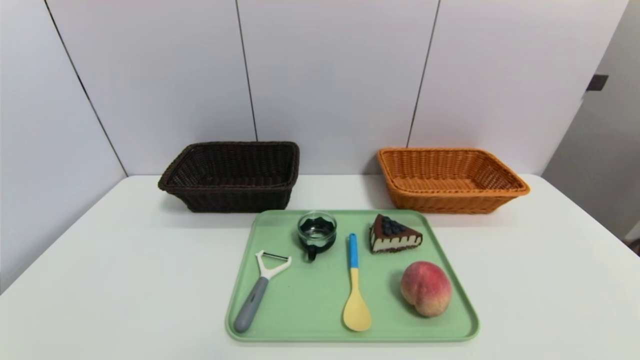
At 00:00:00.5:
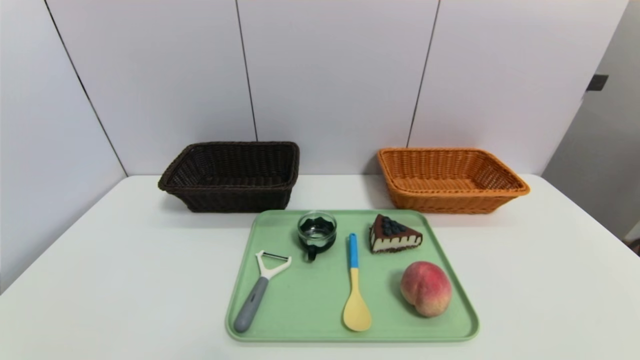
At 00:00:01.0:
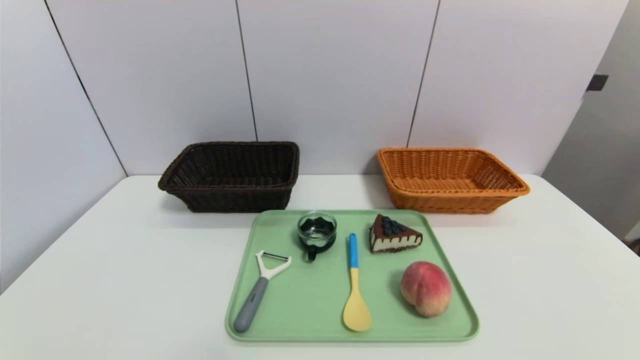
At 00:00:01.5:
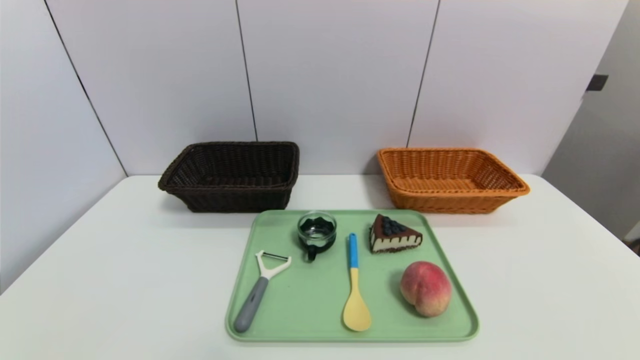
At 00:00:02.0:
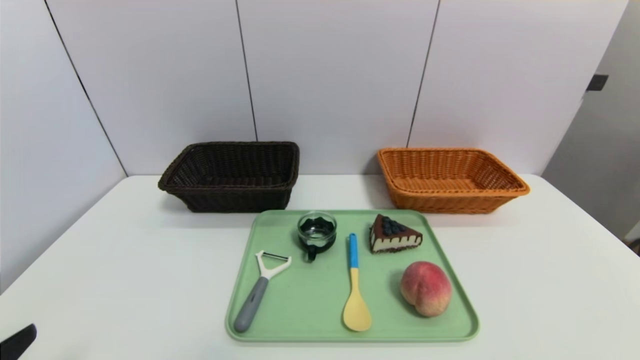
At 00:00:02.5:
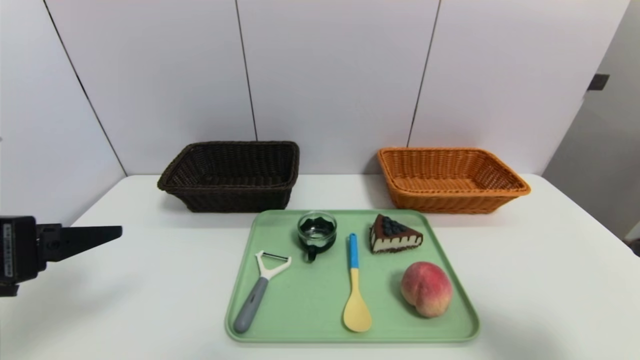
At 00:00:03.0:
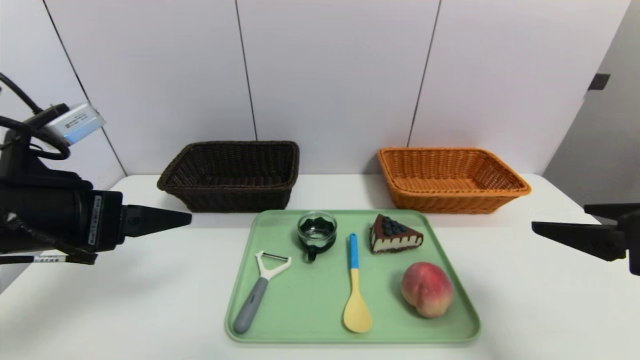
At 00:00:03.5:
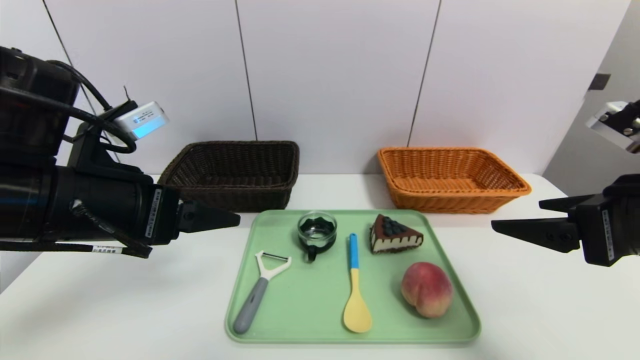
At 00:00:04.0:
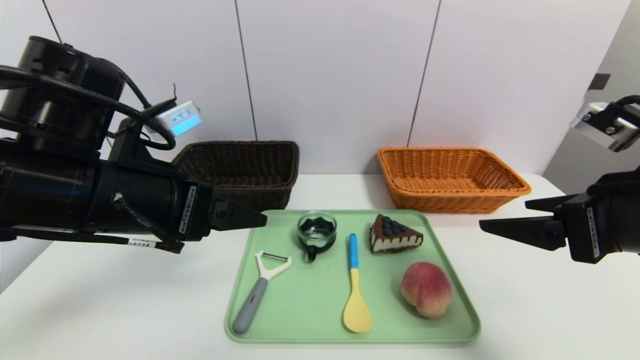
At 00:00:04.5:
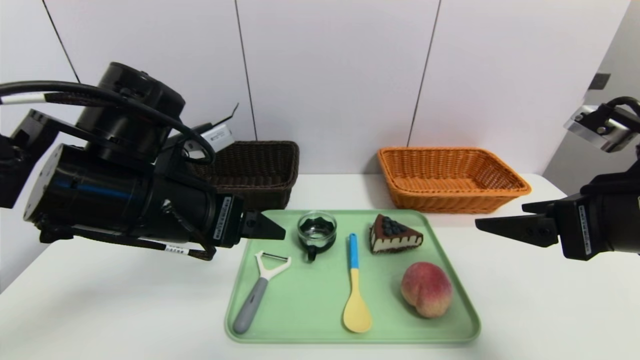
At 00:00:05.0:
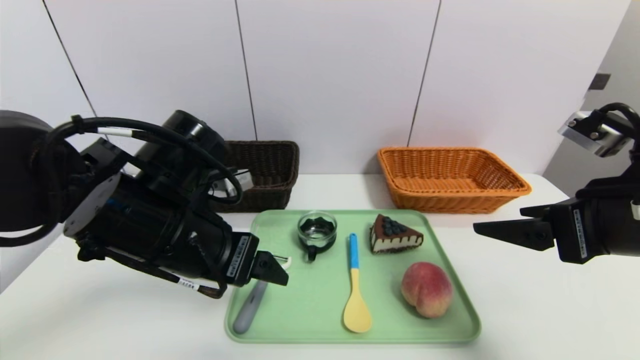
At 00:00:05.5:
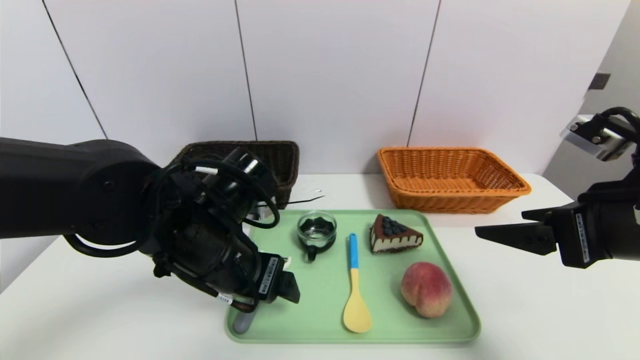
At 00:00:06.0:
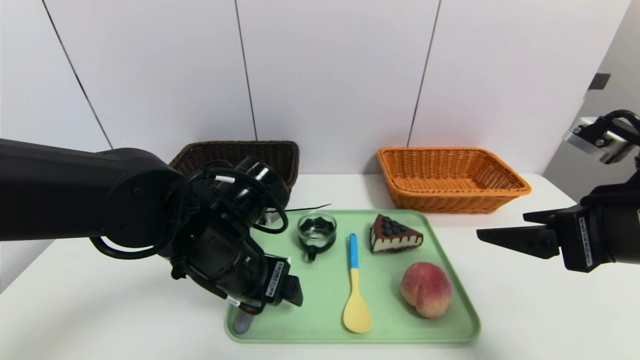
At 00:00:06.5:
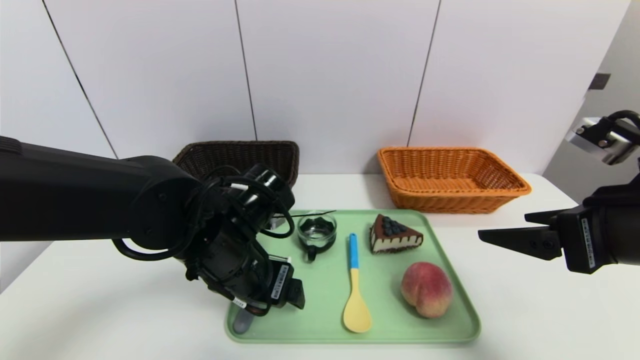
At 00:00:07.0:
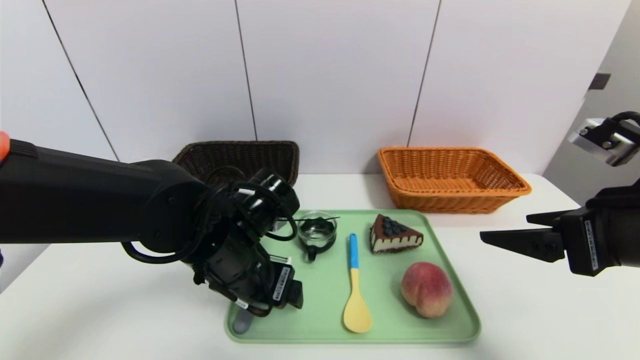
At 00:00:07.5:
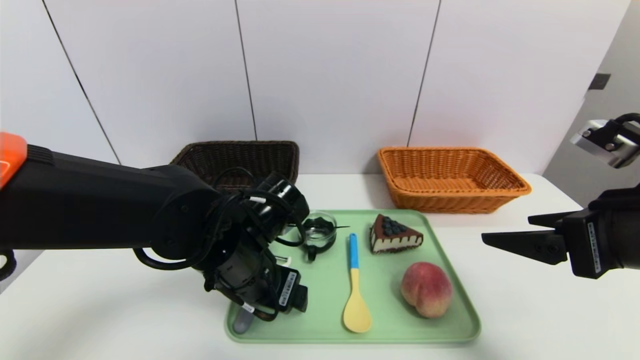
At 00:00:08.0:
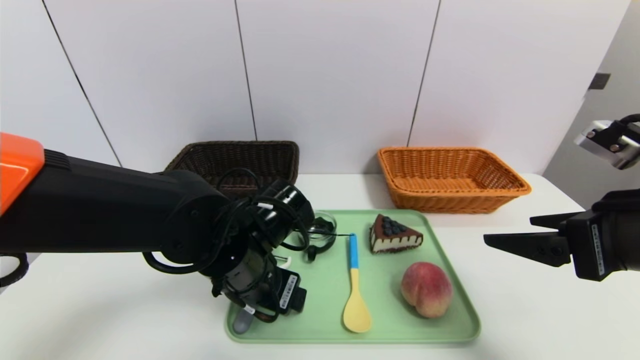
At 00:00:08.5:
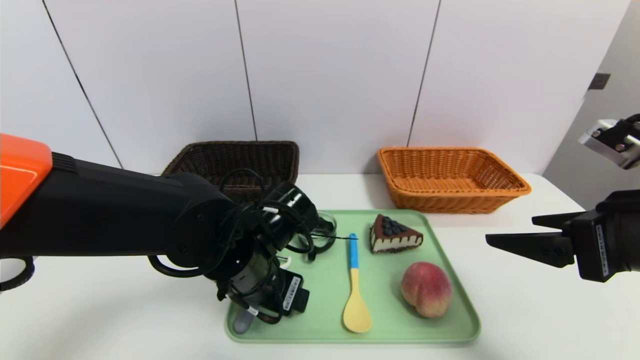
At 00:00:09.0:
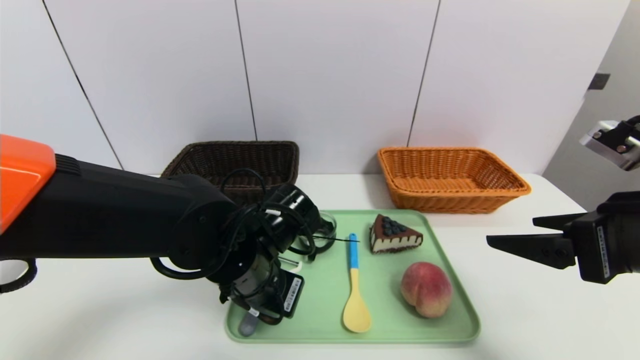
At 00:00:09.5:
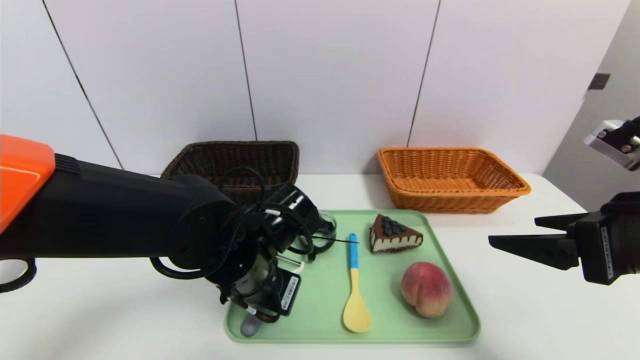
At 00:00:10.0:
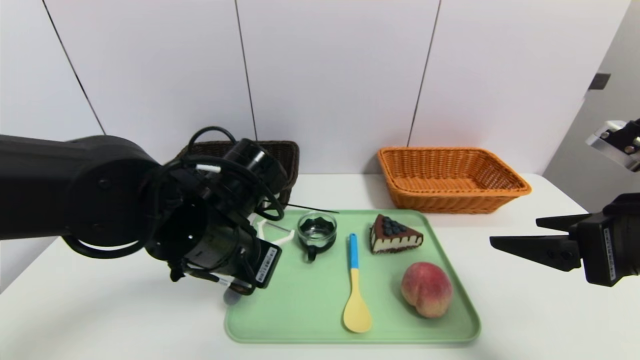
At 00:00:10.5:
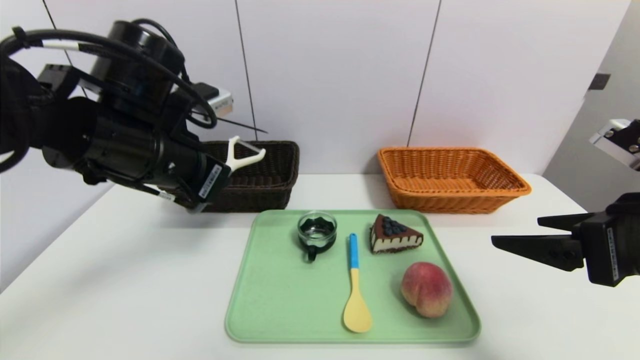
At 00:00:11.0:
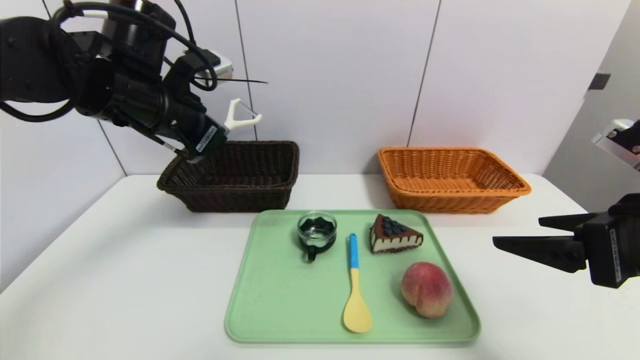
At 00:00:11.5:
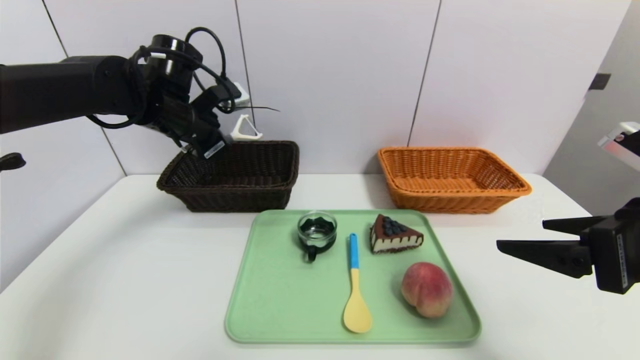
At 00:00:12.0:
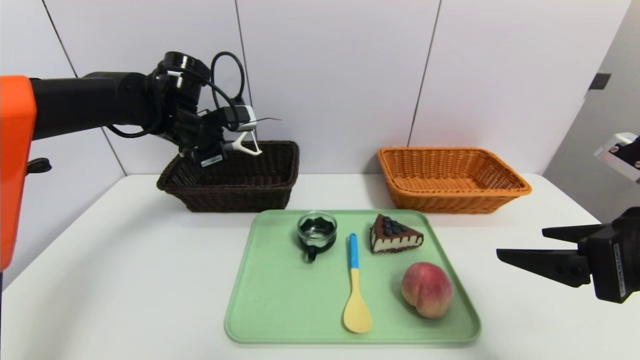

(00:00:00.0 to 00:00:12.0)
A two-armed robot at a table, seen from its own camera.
Task of the whole recording: place the food in the right basket with the right gripper, and place the non food items in the left basket with the left gripper.
00:00:02.0 - 00:00:04.0: The left gripper is displaced forward and to the right by about 20 cm. The right gripper travels forward by about 20 cm.
00:00:04.0 - 00:00:06.0: The left gripper moves downward and to the right, roughly 10 cm.
00:00:06.0 - 00:00:08.0: The grippers move only a little.
00:00:08.0 - 00:00:10.0: The left gripper shifts some 5 cm upward, and closes.
00:00:10.0 - 00:00:12.0: The left gripper goes about 20 cm forward and to the left.

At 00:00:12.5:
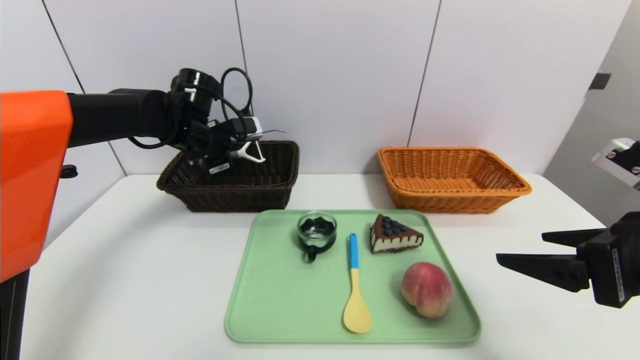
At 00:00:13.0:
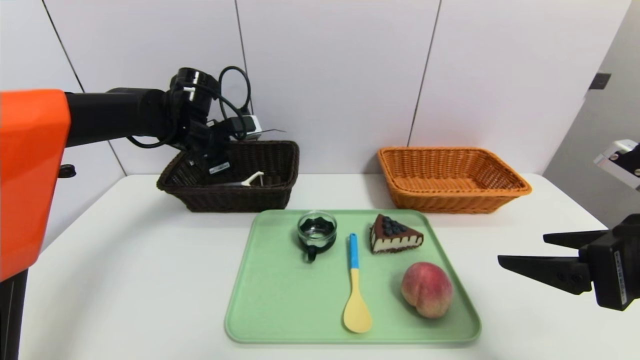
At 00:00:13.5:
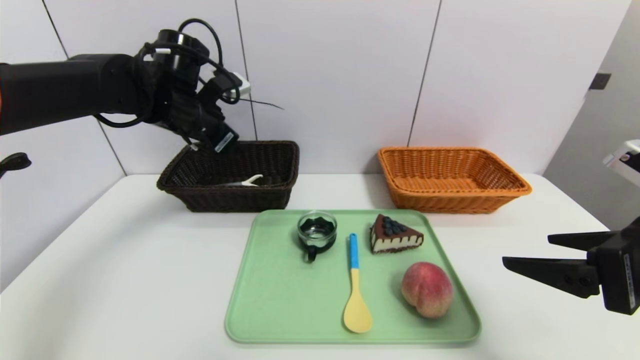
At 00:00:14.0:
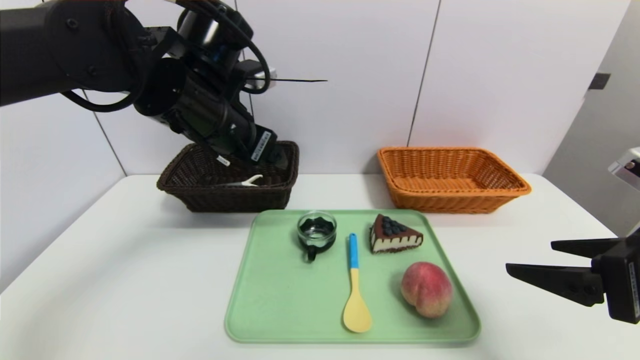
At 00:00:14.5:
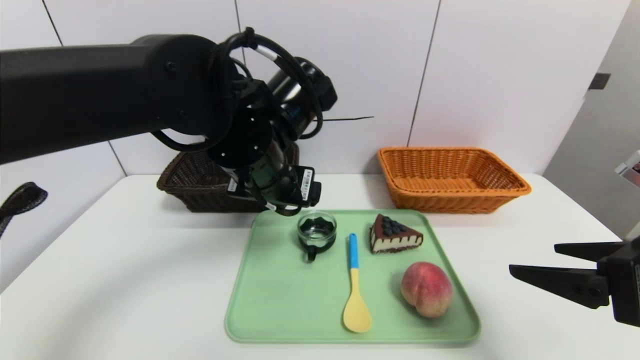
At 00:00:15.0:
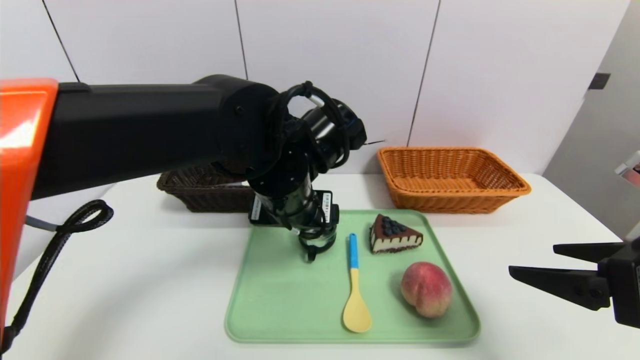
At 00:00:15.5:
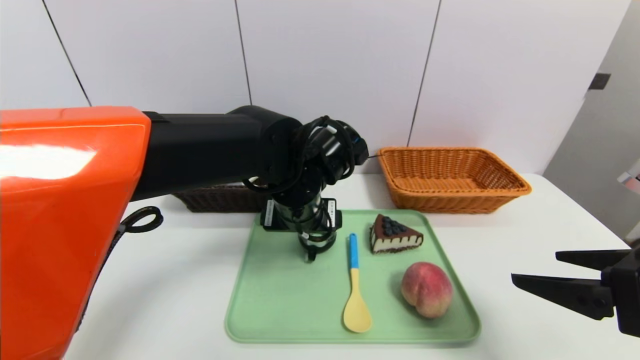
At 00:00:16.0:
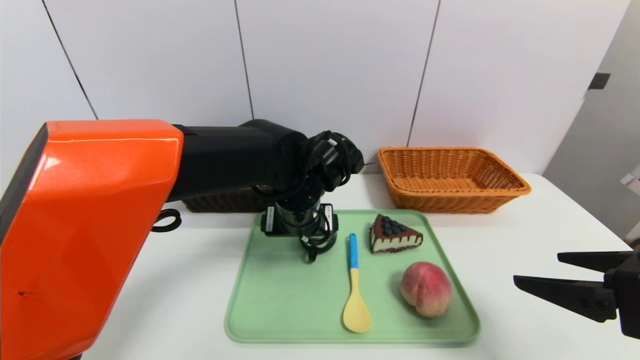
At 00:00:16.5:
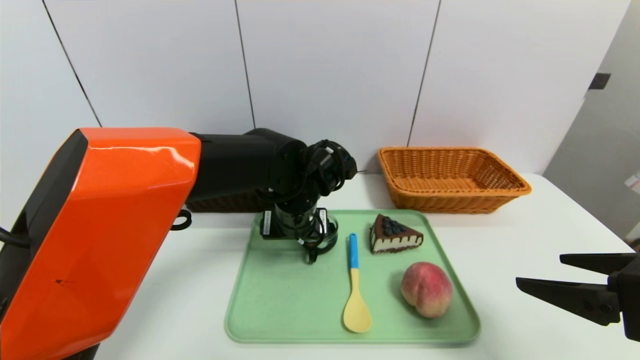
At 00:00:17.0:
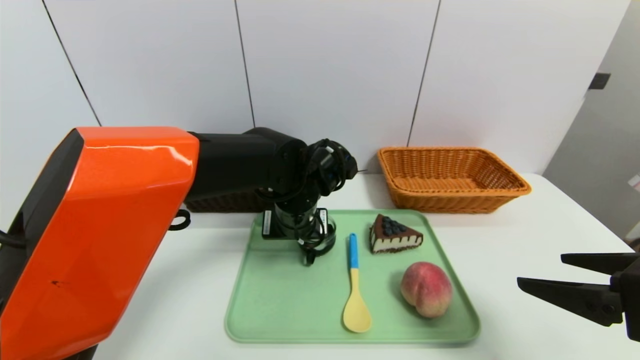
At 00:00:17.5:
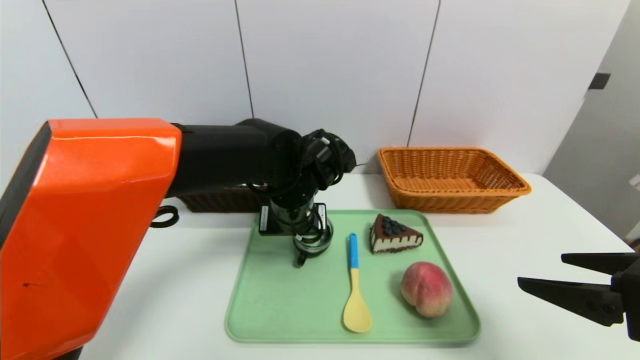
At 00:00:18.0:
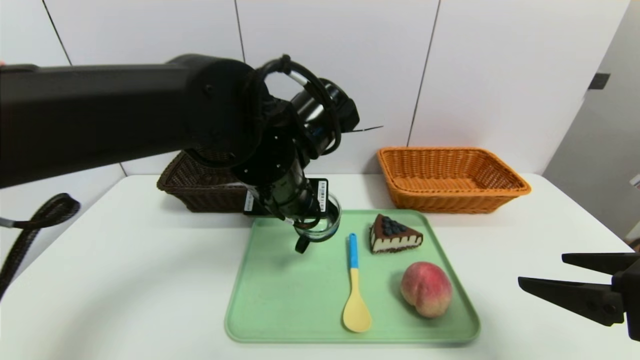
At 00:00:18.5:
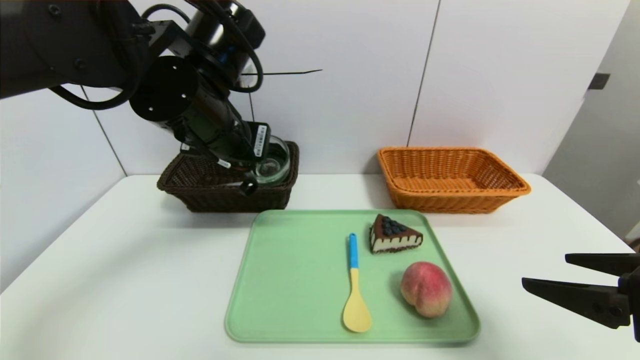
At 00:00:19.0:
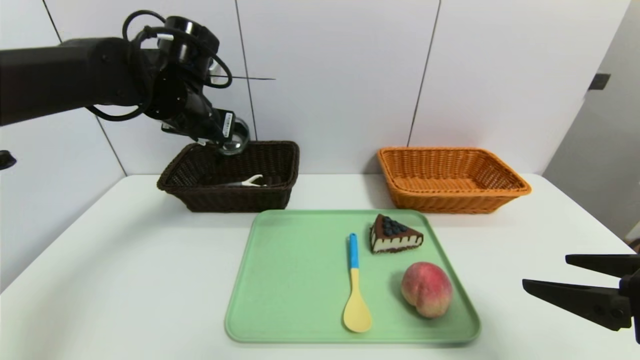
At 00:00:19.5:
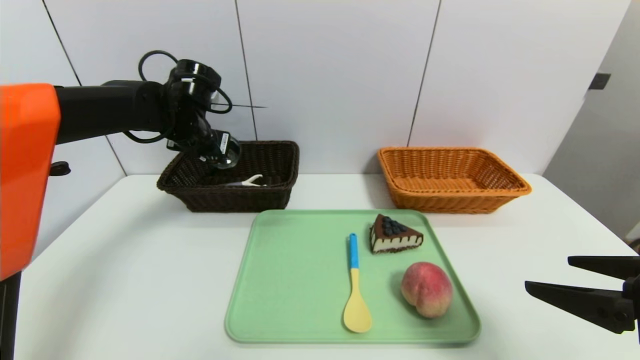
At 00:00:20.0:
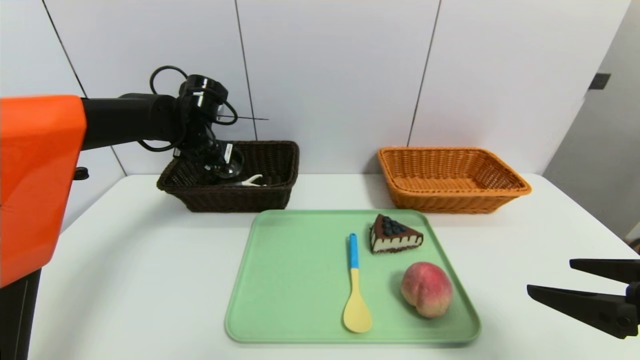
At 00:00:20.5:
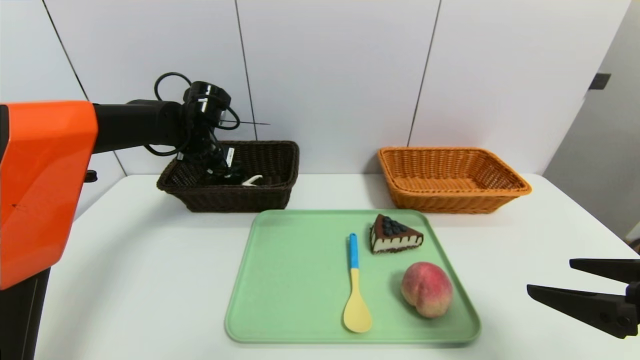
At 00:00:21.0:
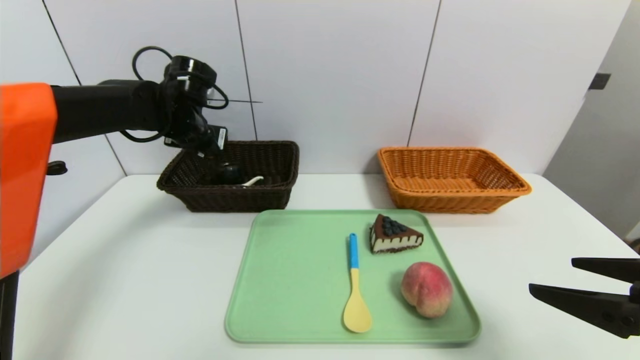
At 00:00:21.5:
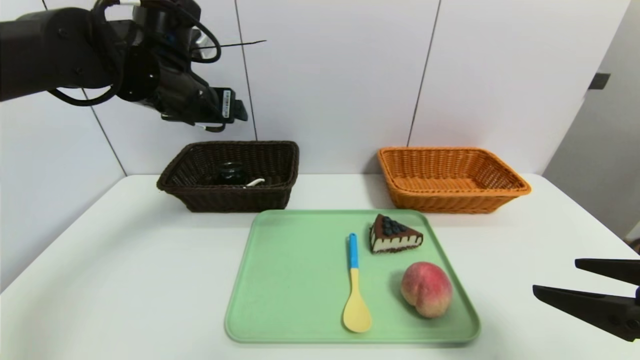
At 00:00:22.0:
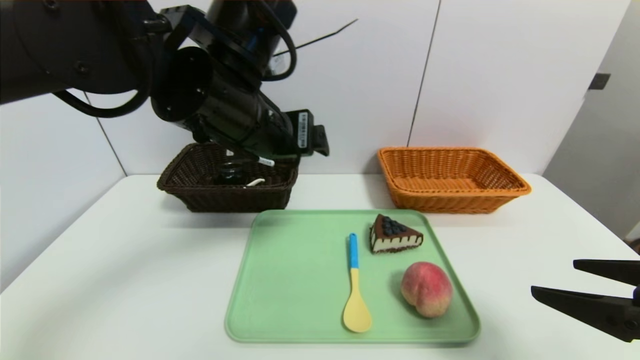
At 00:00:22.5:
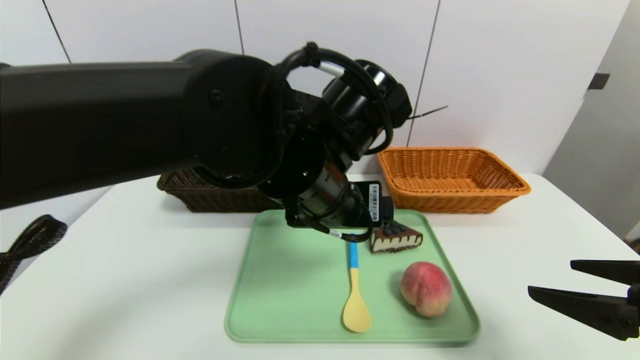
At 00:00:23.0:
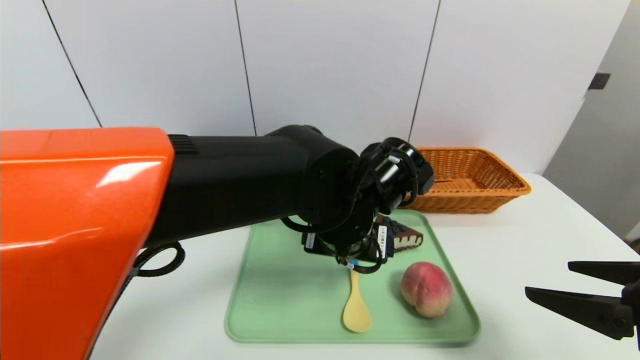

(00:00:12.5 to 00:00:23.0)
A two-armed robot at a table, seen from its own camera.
Task of the whole recording: place the food in the right basket with the right gripper, and place the non food items in the left basket with the left gripper.
Step, 00:00:14.0 - 00:00:20.5: Grasp the black glass cup and put it in the left basket.
00:00:12.5 - 00:00:14.5: The left gripper travels backward and to the right by about 20 cm, and opens up.
00:00:14.5 - 00:00:16.5: The left gripper travels downward and forward by approximately 10 cm.
00:00:16.5 - 00:00:19.0: The left gripper travels to the left and upward by approximately 20 cm, and closes.
00:00:19.0 - 00:00:21.0: The left gripper goes approximately 5 cm forward, and opens up.
00:00:21.0 - 00:00:23.0: The left gripper moves to the right and backward, about 30 cm.
